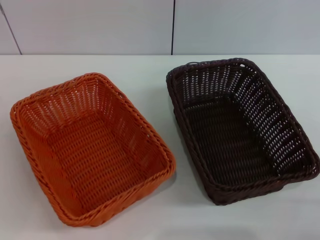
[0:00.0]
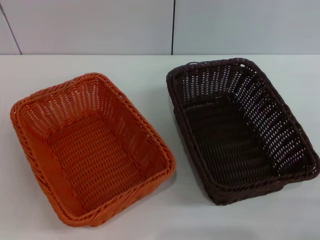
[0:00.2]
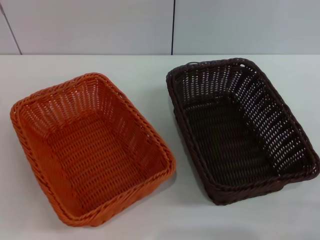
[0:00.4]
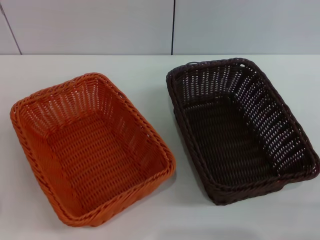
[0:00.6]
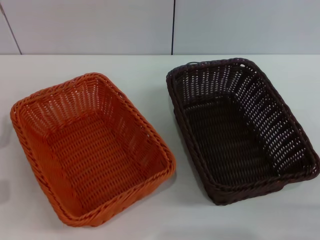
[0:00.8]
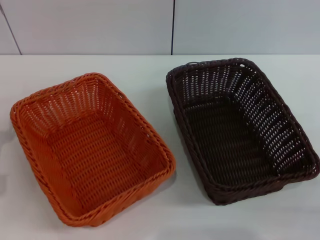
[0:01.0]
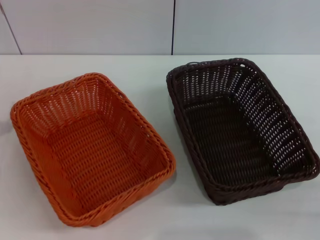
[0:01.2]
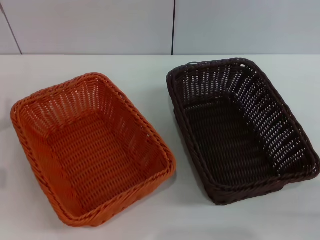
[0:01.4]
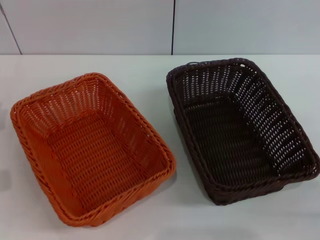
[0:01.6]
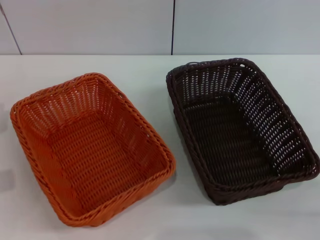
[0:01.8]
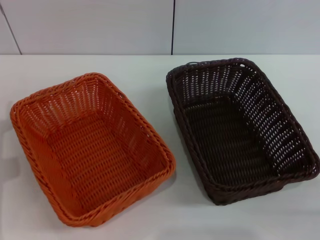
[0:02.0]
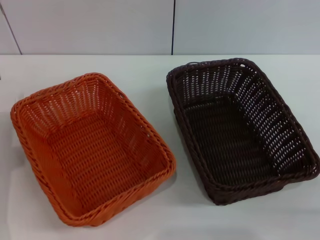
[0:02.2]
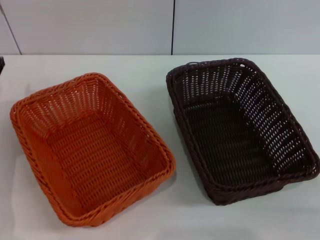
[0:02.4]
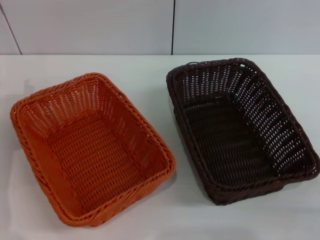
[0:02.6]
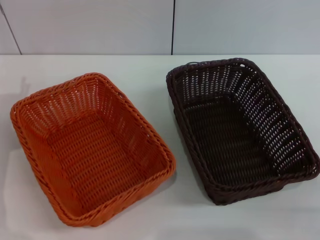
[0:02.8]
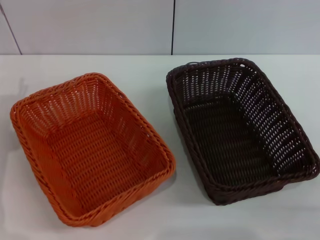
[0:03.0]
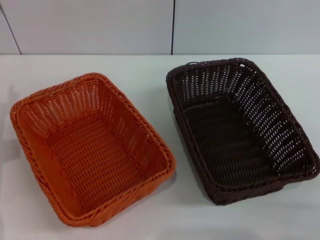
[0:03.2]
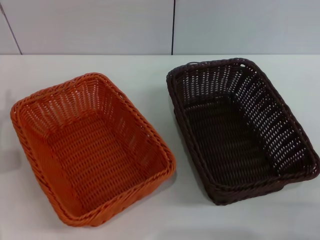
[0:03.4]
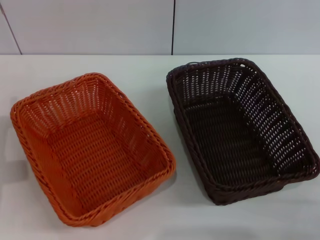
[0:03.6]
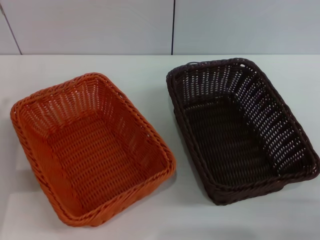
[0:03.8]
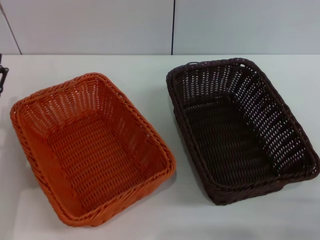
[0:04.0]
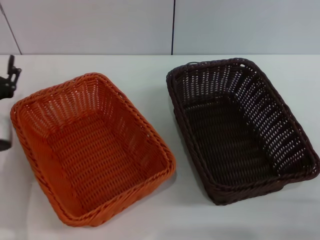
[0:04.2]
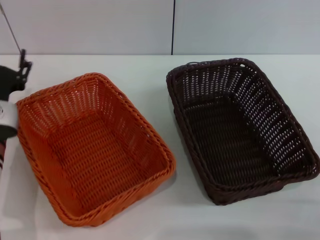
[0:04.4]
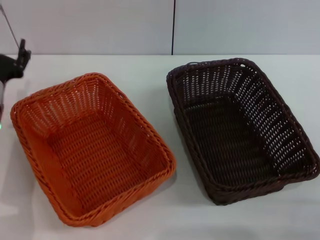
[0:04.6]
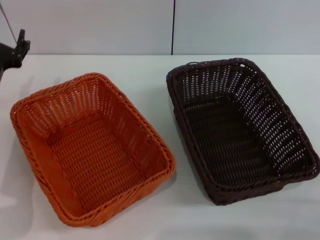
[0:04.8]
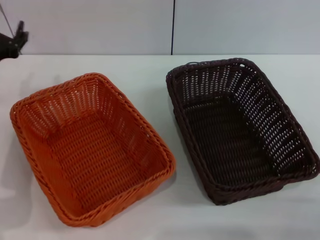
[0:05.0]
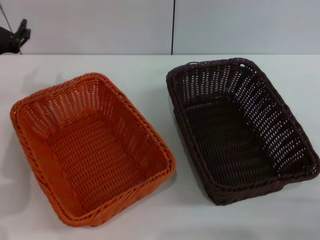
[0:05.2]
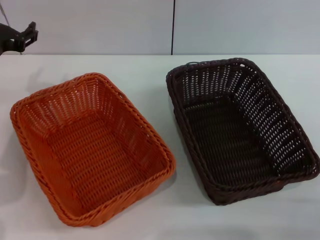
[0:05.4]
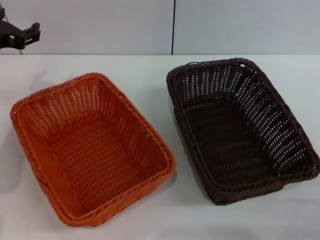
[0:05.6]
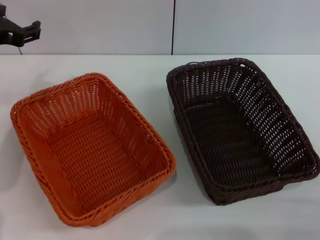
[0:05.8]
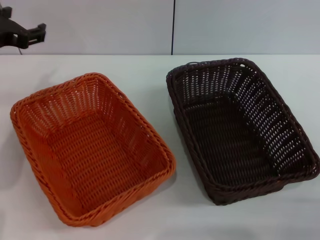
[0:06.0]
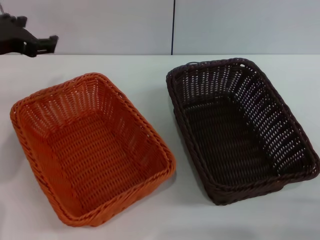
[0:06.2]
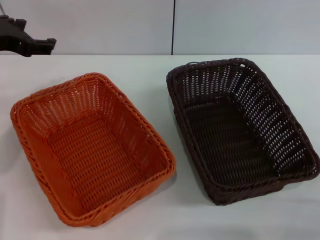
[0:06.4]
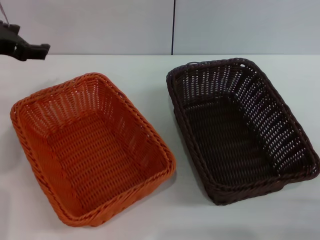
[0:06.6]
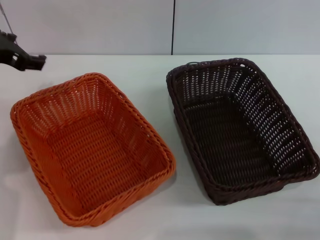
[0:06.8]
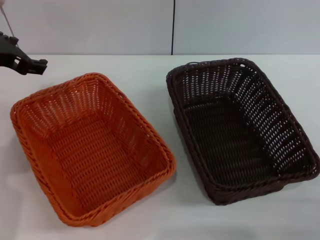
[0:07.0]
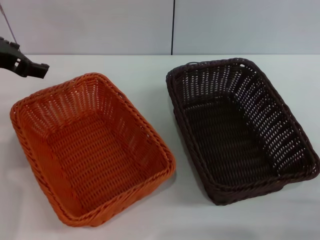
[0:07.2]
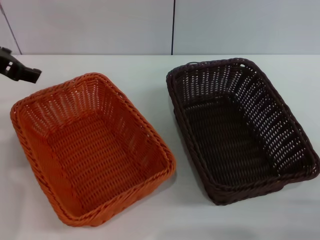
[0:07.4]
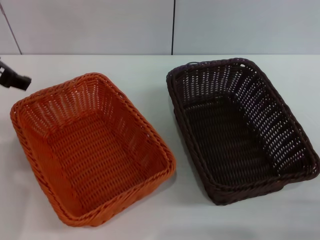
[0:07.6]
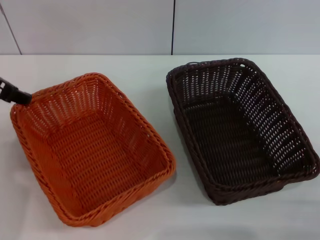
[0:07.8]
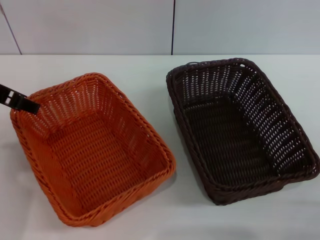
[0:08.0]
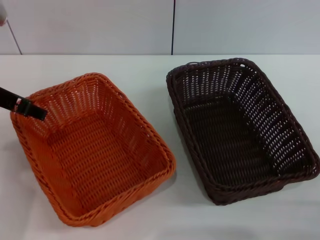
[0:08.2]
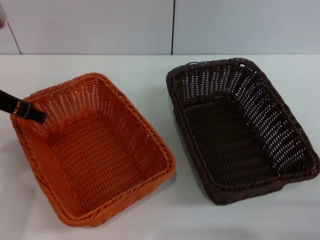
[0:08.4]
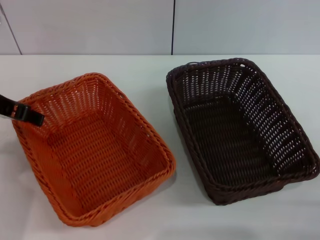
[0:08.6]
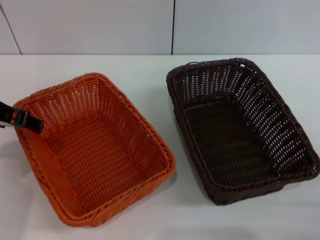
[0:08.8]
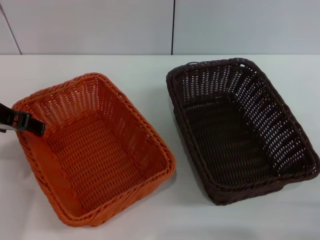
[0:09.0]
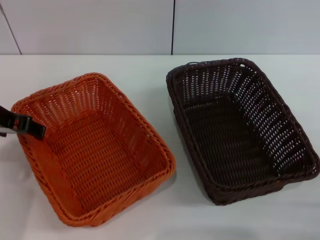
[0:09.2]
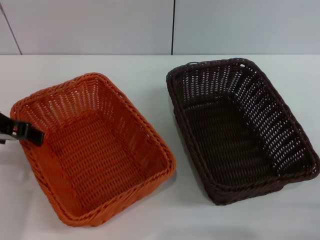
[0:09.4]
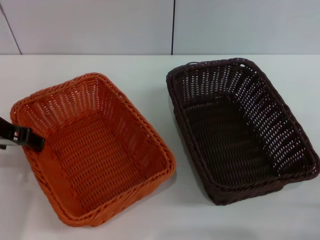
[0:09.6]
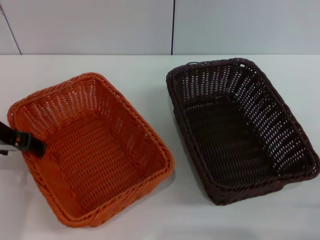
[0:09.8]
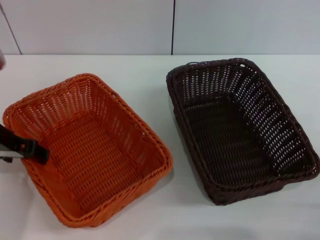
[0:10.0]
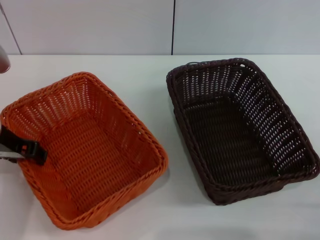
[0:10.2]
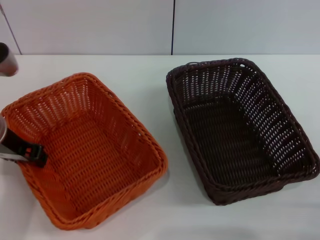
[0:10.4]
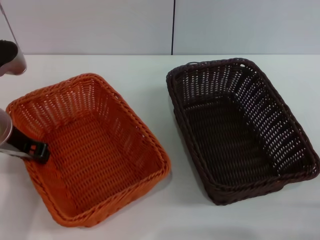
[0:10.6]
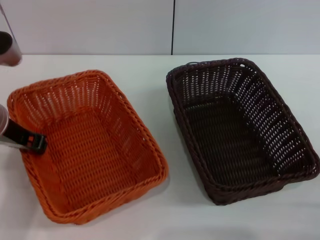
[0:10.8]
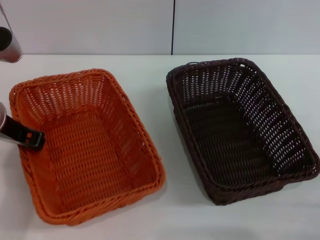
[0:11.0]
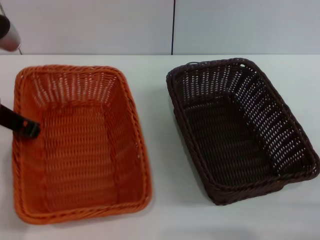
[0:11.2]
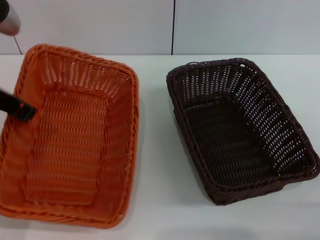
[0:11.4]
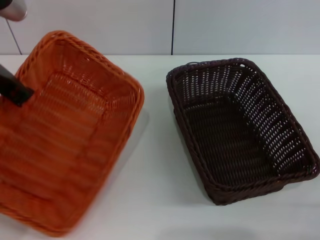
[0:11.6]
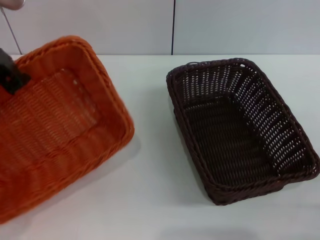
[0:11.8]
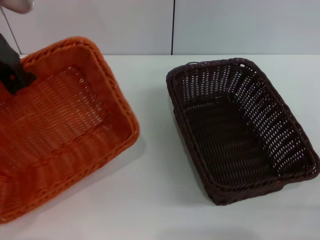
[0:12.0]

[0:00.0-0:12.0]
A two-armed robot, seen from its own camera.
Step, 0:00.0 to 0:11.2: Pick up the light basket with the left gripper.
0:03.0 to 0:04.4: The left gripper is displaced to the right by about 5 cm.
0:04.4 to 0:06.0: The left gripper heads upward, covering roughly 15 cm.
0:06.0 to 0:07.6: The left gripper shifts by roughly 5 cm.
0:09.0 to 0:10.4: The grippers move only a little.
0:10.4 to 0:12.0: The left gripper moves upward, about 10 cm, and closes.

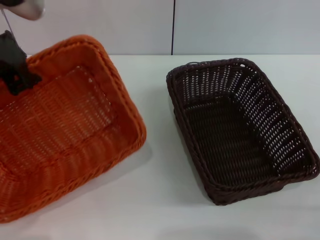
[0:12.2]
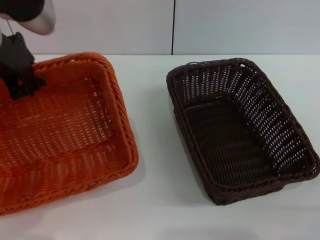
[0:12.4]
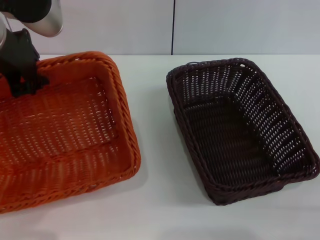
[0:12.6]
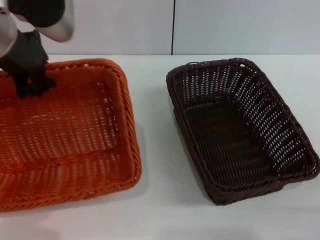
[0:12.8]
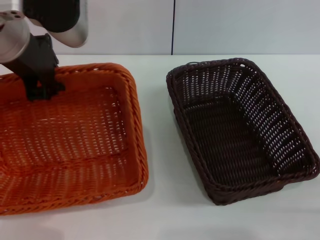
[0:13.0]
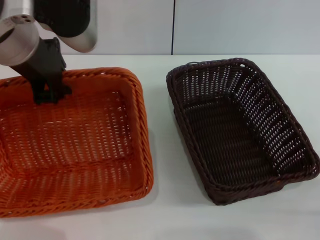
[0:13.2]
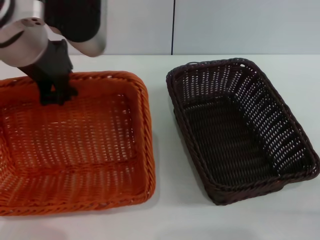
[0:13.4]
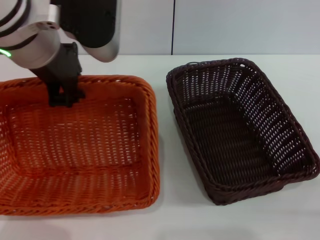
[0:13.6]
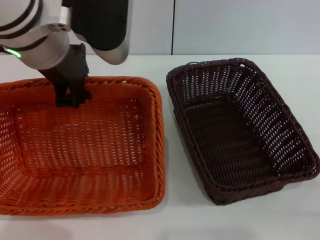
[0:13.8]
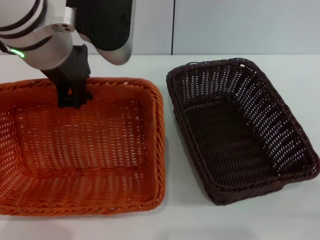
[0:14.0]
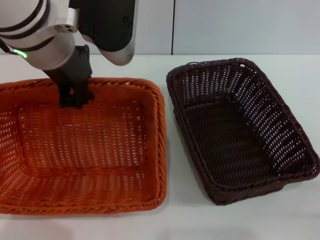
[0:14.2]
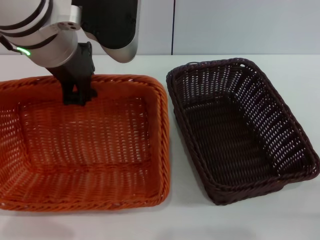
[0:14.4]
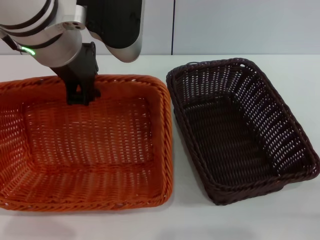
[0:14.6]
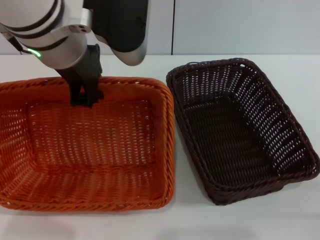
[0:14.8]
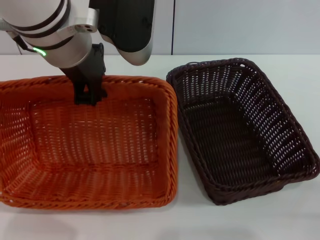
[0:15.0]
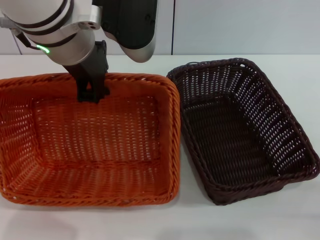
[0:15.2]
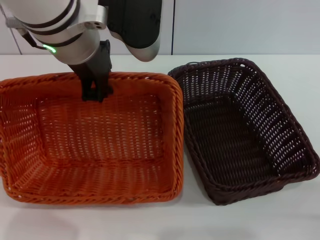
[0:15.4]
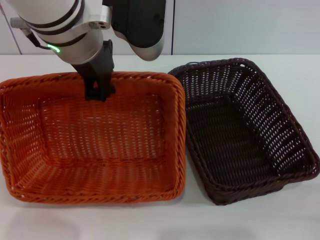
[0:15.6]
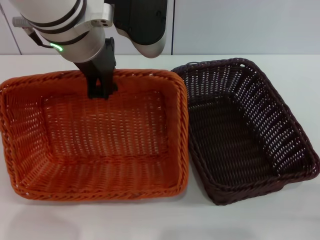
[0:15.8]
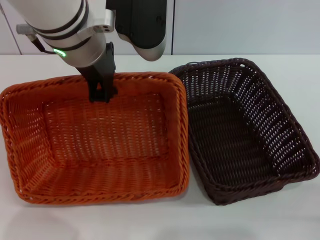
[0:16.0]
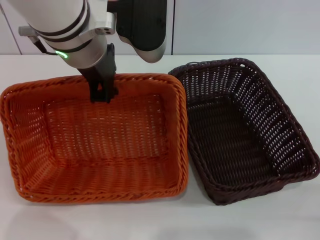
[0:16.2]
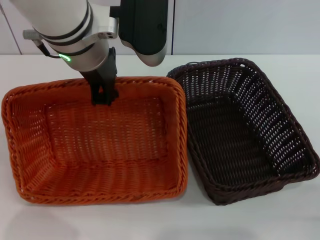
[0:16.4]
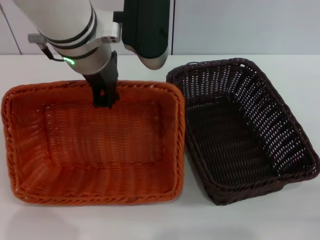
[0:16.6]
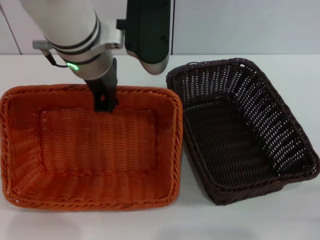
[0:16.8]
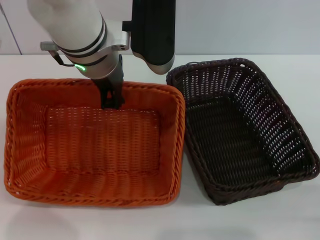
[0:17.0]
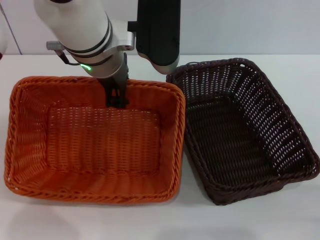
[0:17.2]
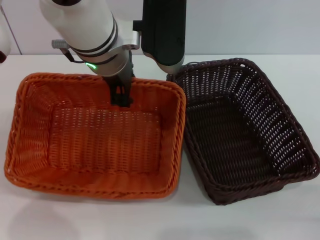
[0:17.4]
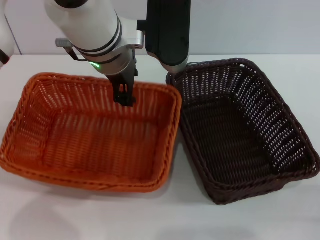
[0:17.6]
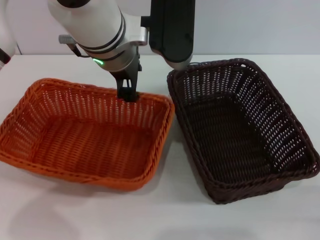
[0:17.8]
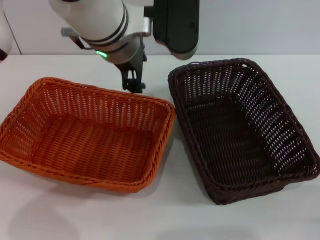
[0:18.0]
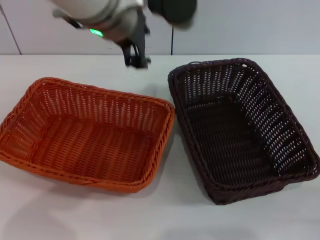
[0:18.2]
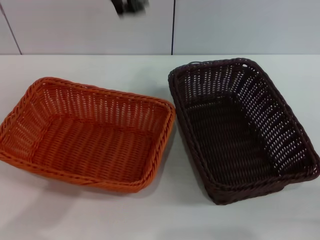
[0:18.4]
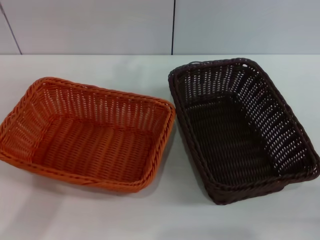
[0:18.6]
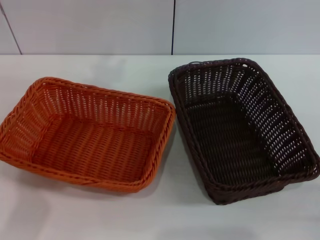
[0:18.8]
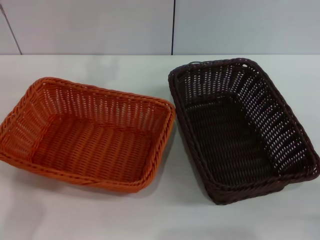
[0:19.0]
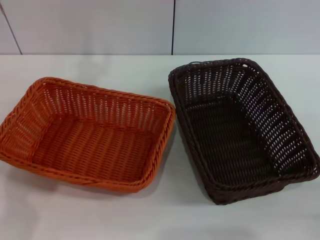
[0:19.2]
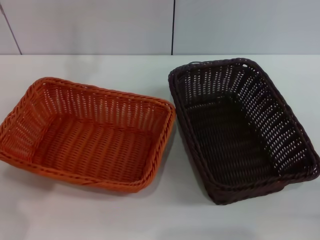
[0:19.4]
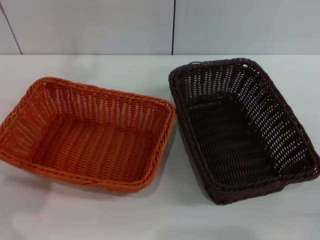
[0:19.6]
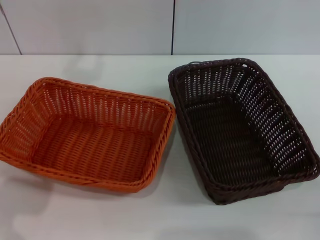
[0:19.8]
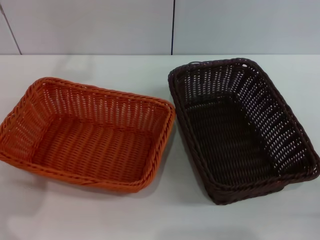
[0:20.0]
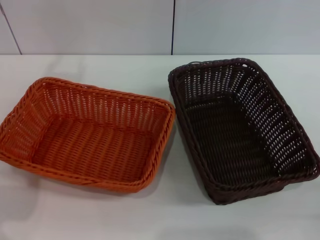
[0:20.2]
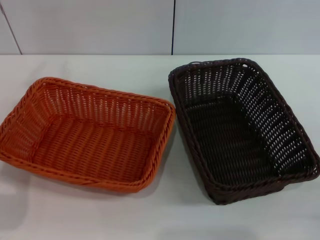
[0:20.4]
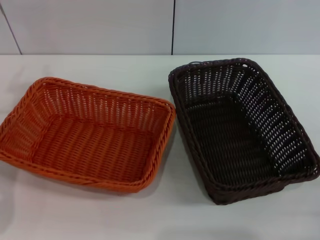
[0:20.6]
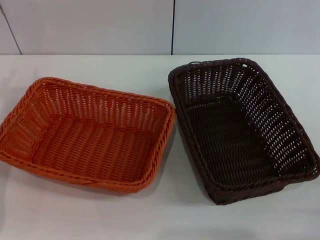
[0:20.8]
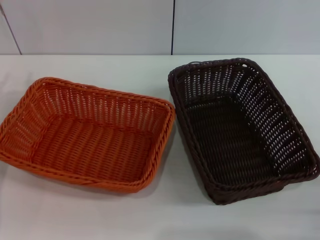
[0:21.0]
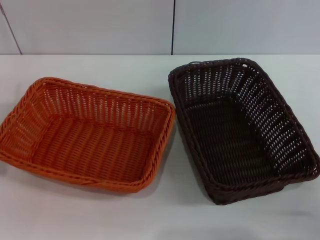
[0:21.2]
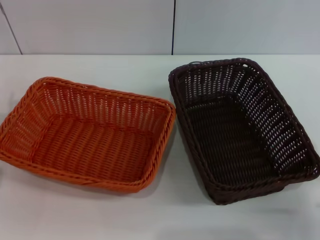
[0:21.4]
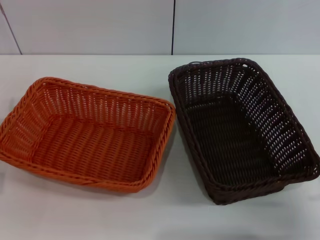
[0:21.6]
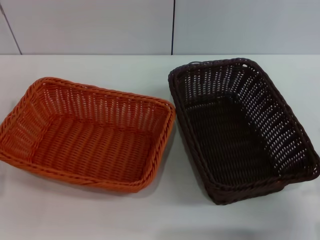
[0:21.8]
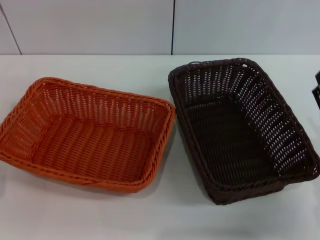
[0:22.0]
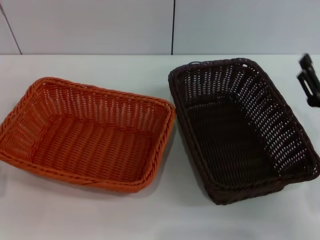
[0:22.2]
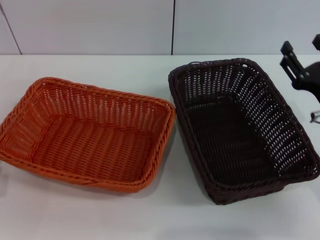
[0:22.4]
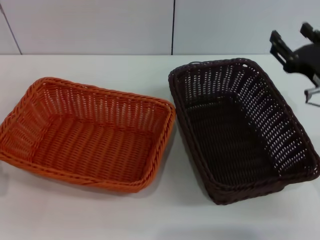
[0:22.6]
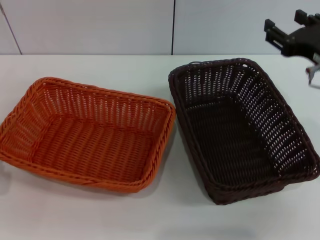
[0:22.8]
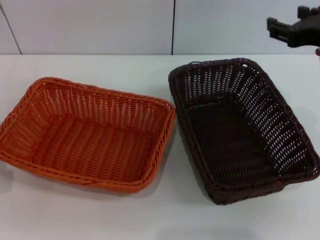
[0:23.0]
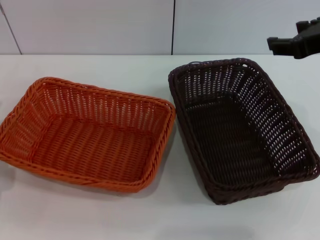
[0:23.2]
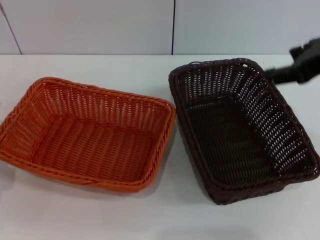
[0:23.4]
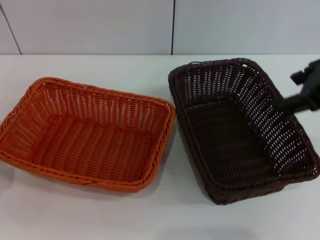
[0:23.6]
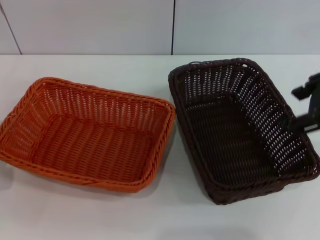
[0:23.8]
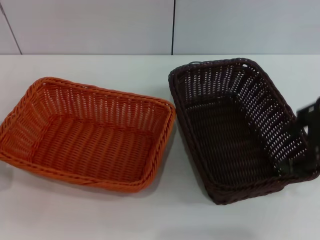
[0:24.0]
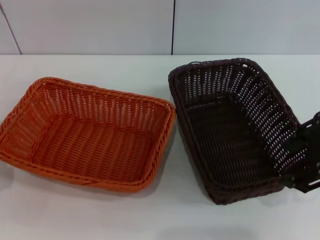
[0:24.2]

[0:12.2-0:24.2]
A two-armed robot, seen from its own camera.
Step, 0:12.2 to 0:17.6: Place the light basket in the center of view with the left gripper.
0:12.2 to 0:13.8: The left gripper heads to the right, covering some 10 cm.
0:15.2 to 0:16.6: The grippers move only a little.
0:16.6 to 0:18.2: The left gripper opens up.
0:18.2 to 0:19.8: The left gripper moves to the left, some 15 cm.
0:21.2 to 0:22.6: The right gripper goes approximately 20 cm forward and upward.
0:22.6 to 0:24.2: The right gripper moves upward, about 15 cm.
